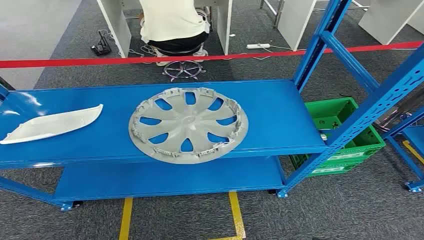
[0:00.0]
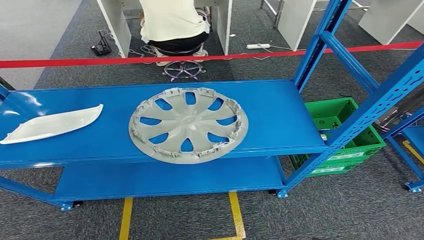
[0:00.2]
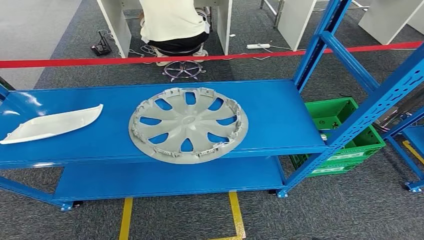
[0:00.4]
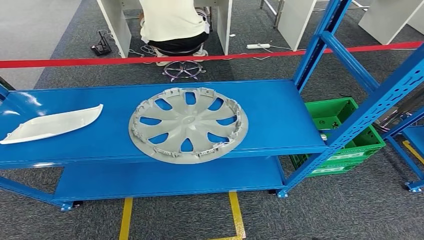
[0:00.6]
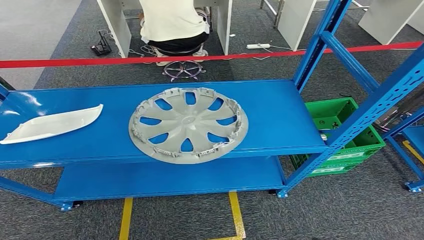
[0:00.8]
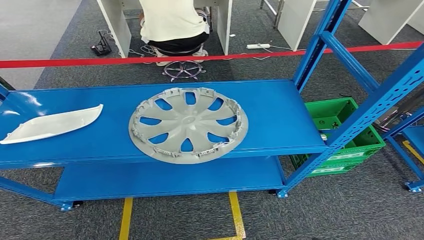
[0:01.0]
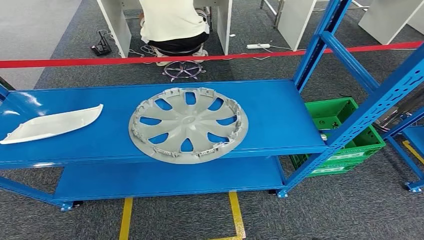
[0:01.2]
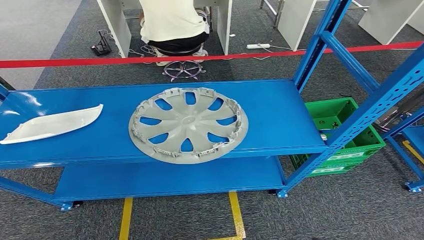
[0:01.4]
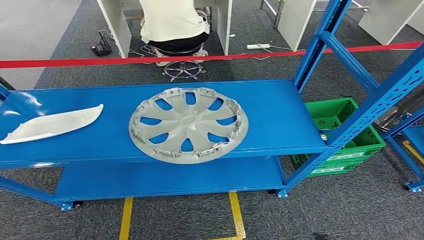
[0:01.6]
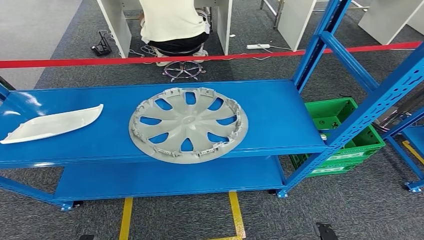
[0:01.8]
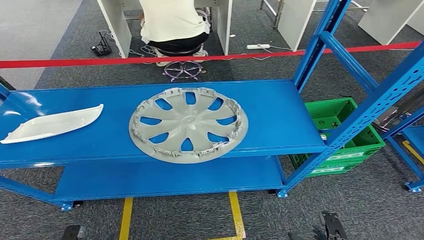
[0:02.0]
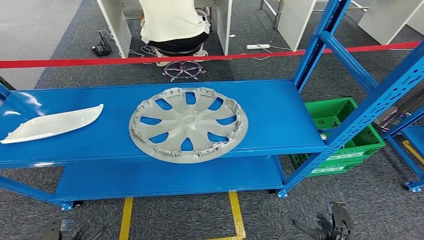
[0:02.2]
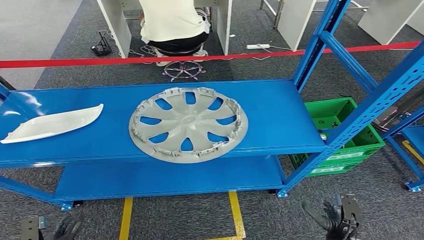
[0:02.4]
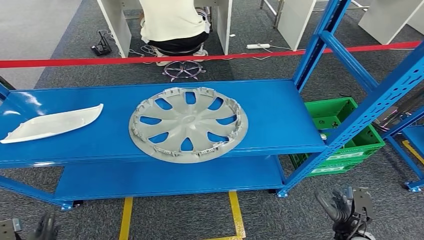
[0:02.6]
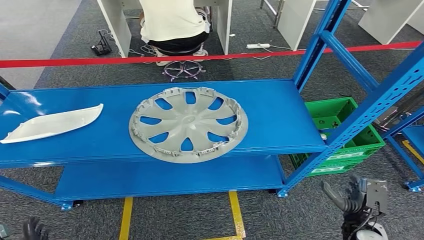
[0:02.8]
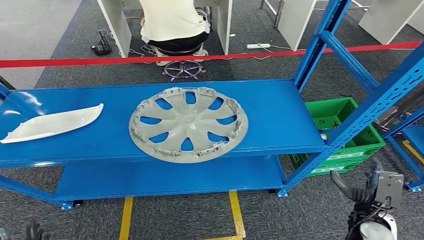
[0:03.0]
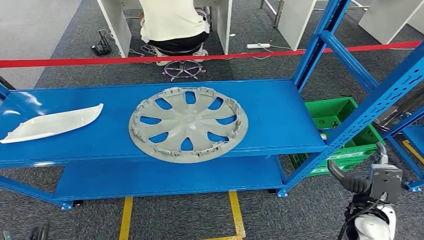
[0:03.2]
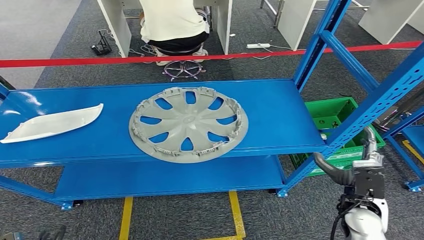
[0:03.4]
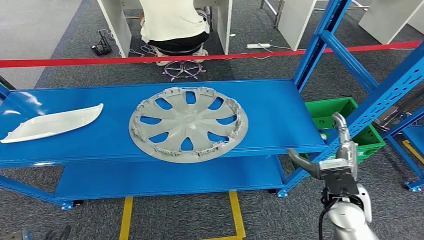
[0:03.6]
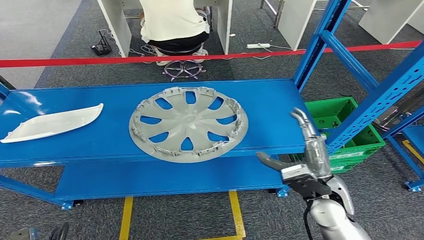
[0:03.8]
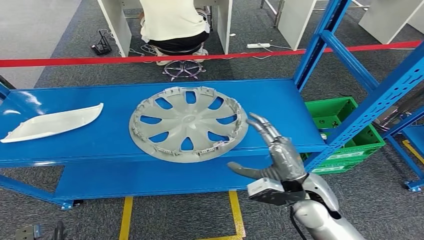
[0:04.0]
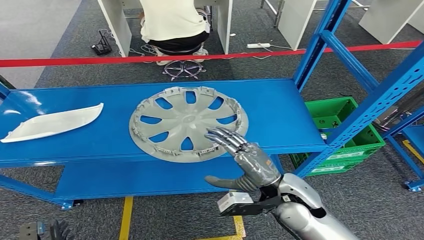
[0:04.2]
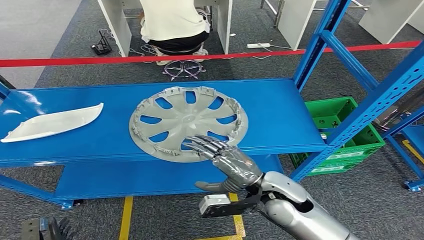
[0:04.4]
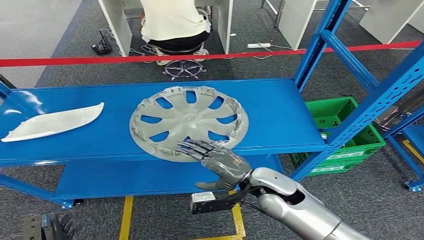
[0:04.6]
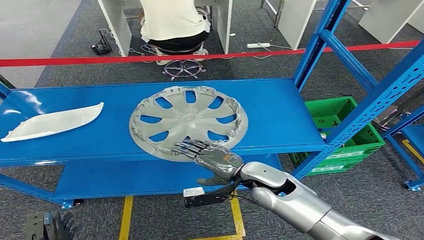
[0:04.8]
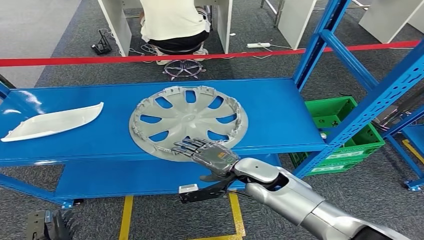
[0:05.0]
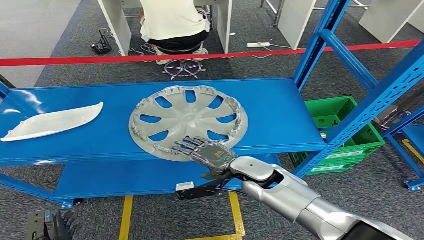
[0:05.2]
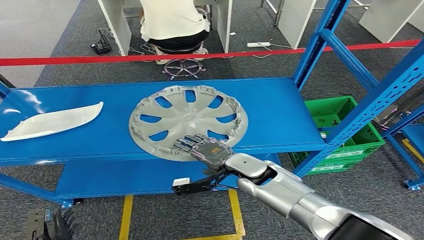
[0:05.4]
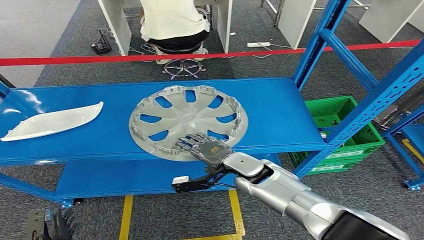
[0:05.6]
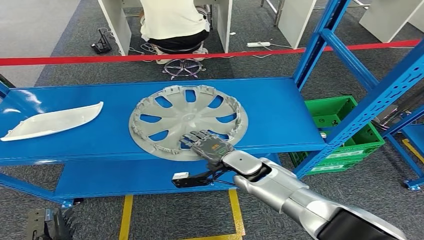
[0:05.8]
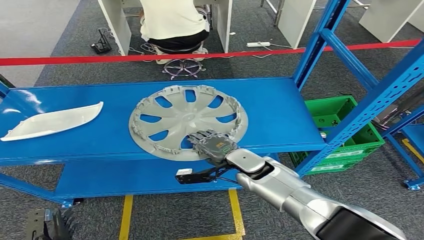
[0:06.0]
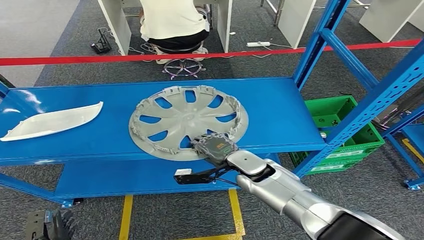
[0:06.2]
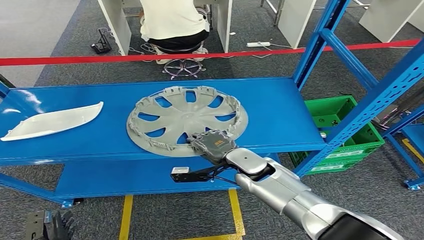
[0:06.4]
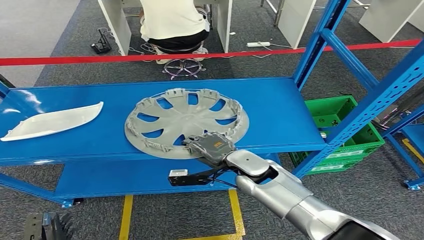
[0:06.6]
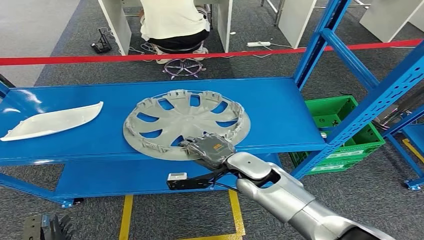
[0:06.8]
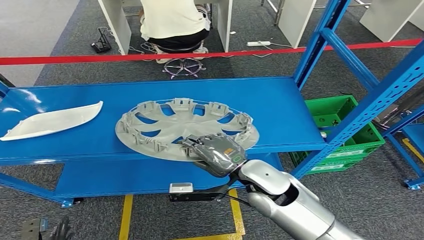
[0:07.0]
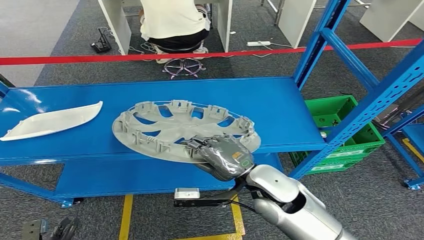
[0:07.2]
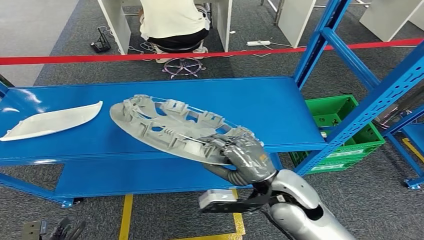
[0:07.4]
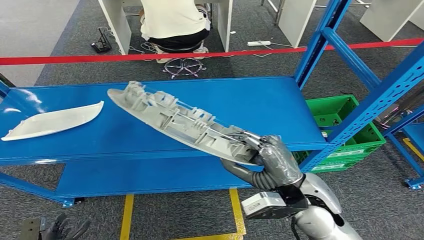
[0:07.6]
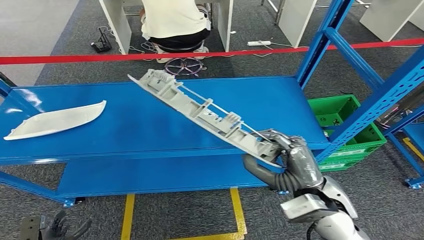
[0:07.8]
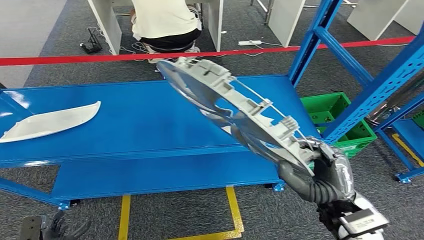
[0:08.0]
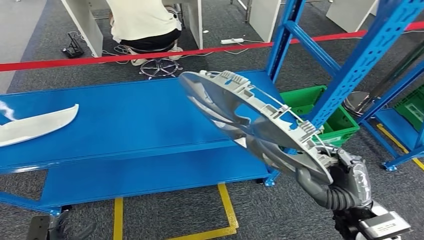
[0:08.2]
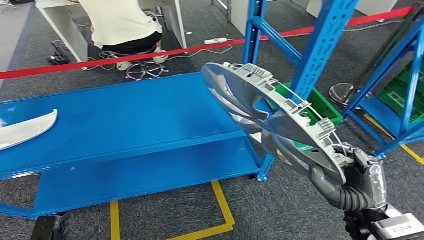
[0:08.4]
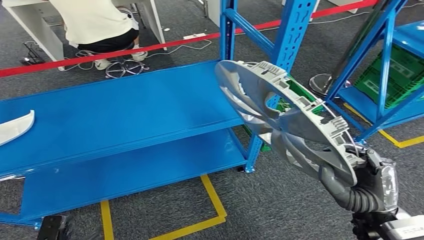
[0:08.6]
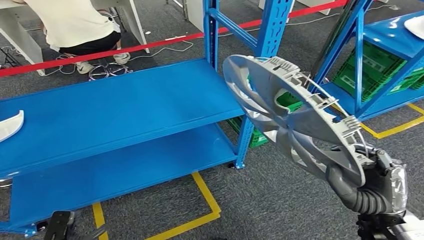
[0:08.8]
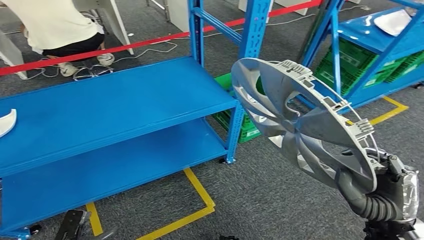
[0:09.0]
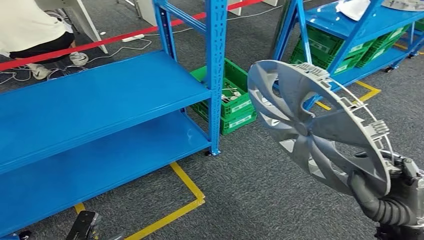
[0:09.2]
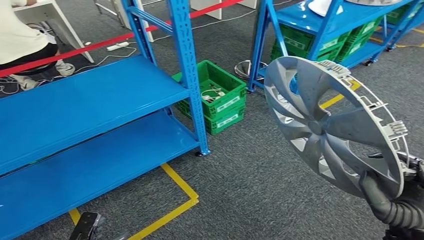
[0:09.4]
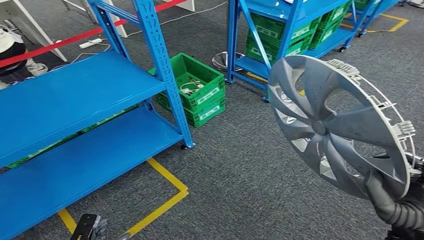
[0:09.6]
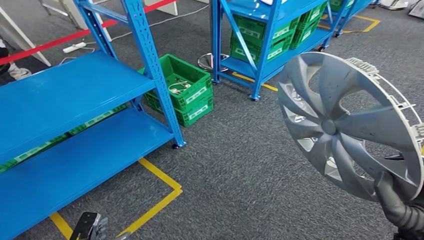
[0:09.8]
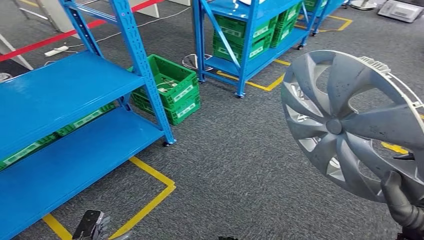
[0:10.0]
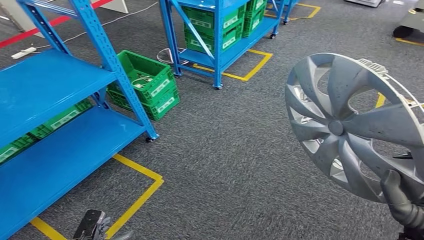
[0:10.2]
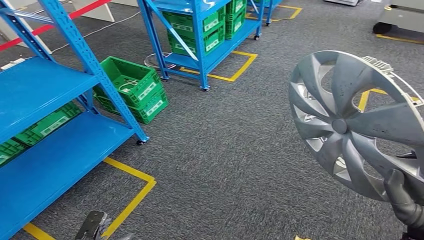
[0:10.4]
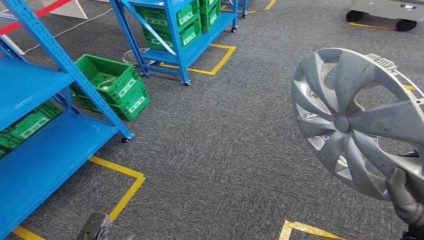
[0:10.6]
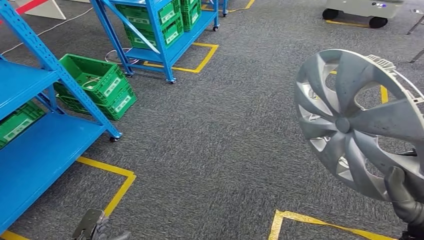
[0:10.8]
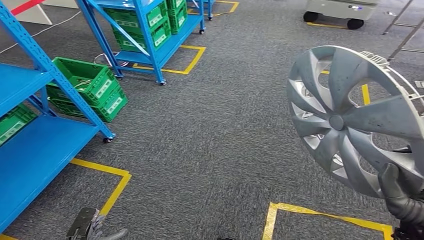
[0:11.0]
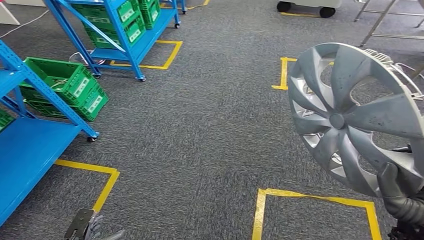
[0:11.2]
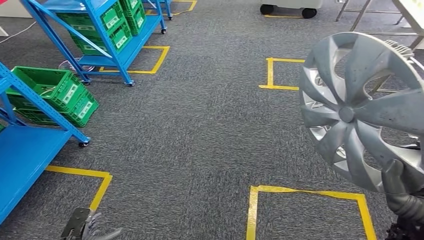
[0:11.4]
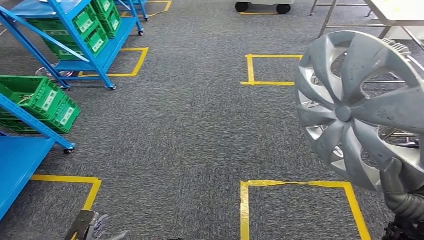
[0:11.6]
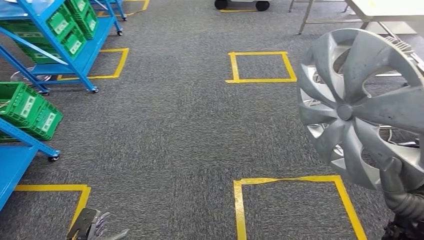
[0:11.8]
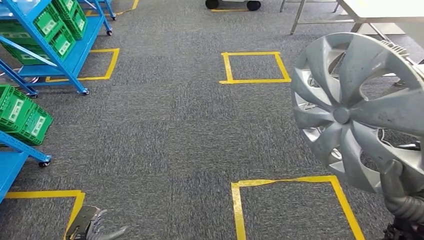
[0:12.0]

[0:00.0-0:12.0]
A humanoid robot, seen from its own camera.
Step, 0:00.0 to 0:07.8: Take small components from the rack.
0:01.6 to 0:03.0: The right hand travels forward and upward by roughly 25 cm, while the left hand travels forward, to the left and upward by approximately 10 cm.
0:03.0 to 0:04.4: The right hand goes about 20 cm to the left and upward.
0:04.4 to 0:06.0: The right hand moves forward, about 10 cm.
0:06.0 to 0:07.6: The right hand is displaced backward, upward and to the right by roughly 15 cm.

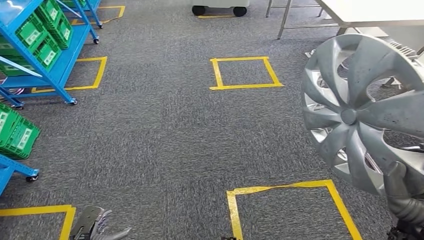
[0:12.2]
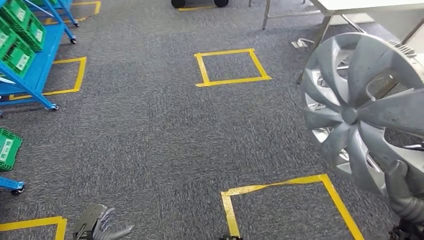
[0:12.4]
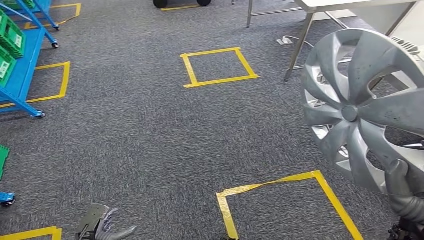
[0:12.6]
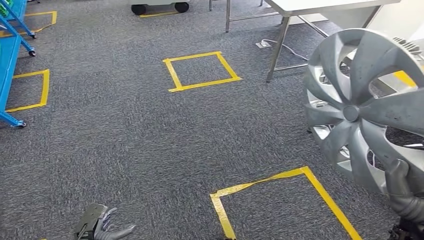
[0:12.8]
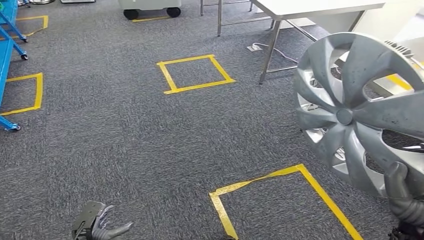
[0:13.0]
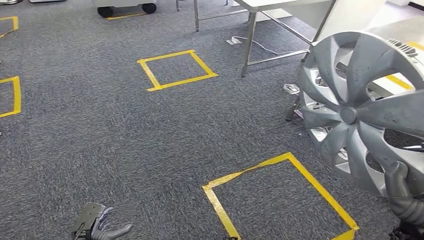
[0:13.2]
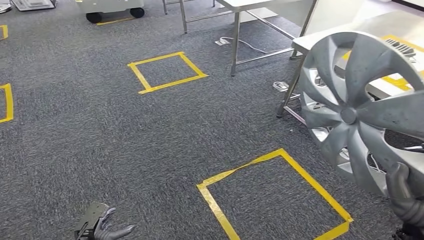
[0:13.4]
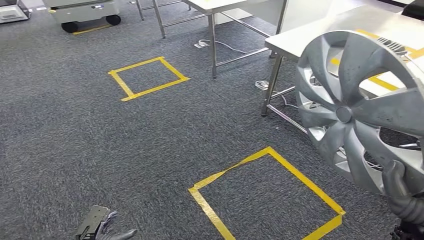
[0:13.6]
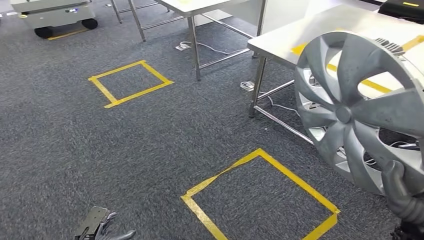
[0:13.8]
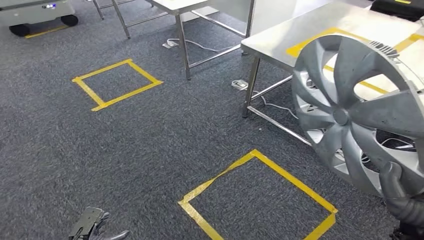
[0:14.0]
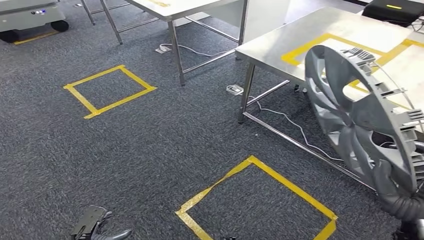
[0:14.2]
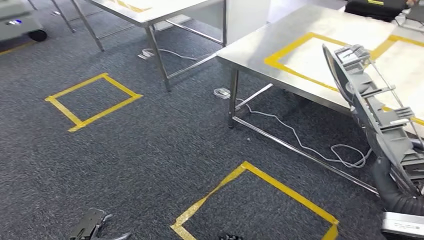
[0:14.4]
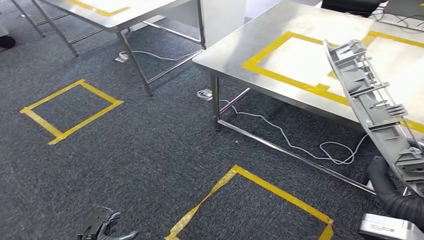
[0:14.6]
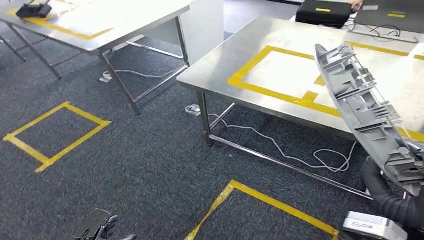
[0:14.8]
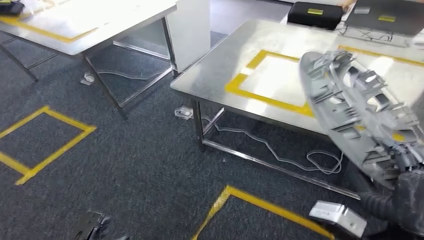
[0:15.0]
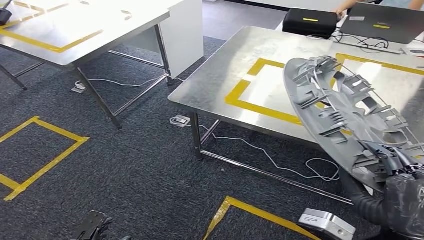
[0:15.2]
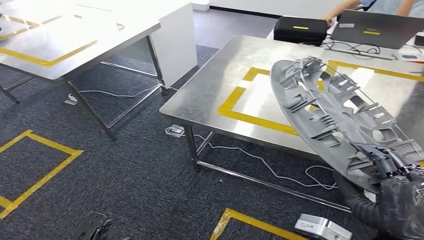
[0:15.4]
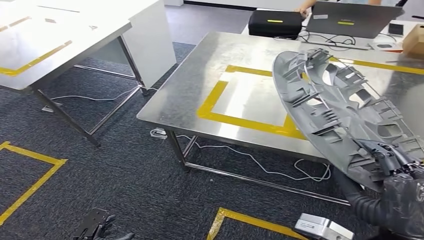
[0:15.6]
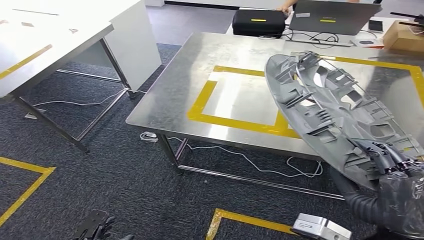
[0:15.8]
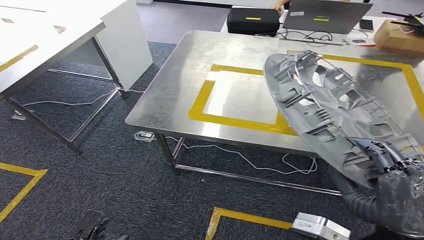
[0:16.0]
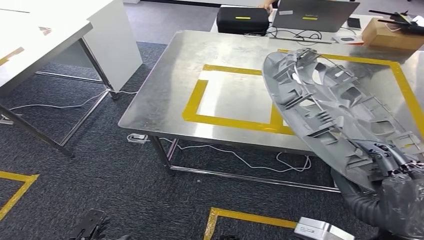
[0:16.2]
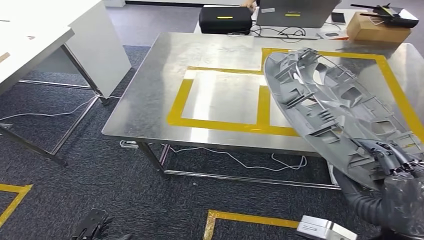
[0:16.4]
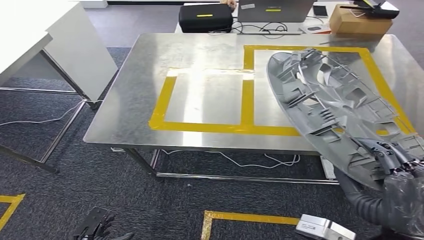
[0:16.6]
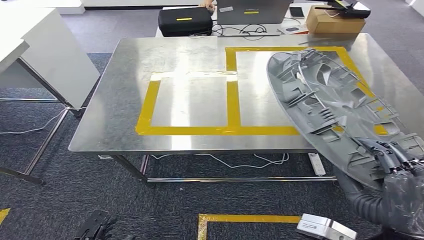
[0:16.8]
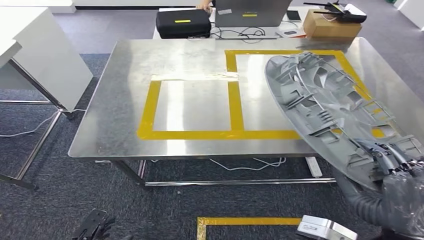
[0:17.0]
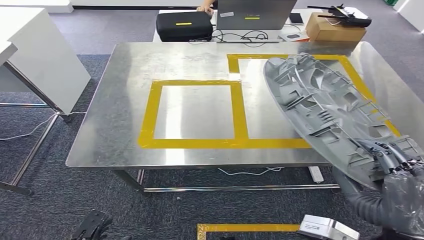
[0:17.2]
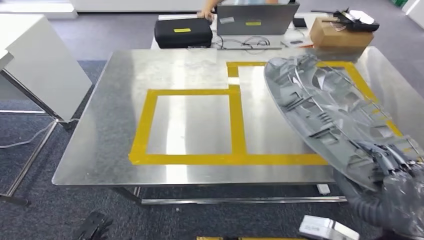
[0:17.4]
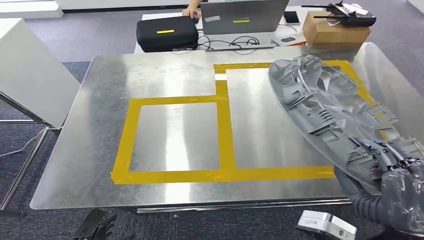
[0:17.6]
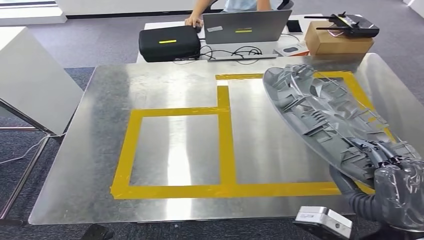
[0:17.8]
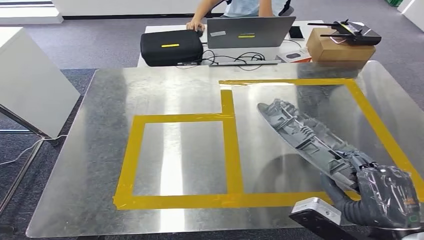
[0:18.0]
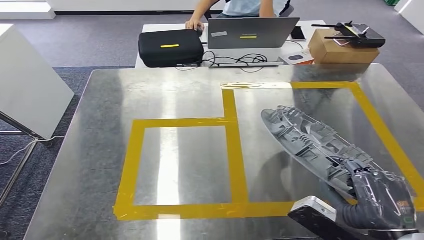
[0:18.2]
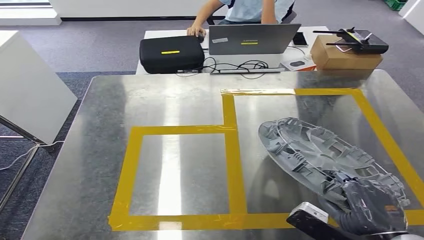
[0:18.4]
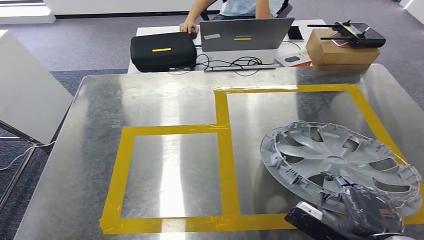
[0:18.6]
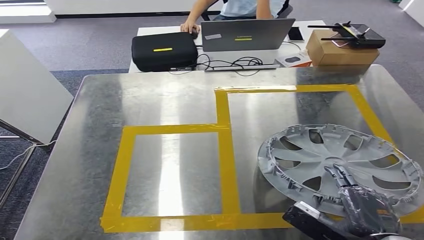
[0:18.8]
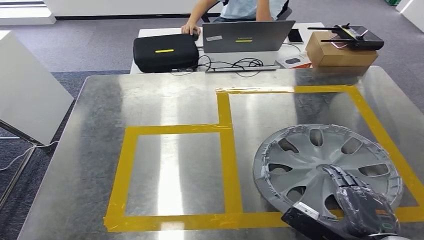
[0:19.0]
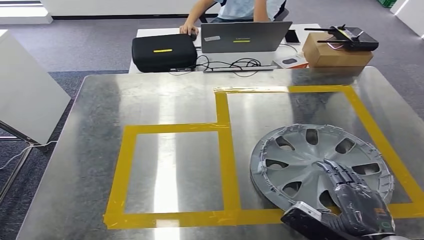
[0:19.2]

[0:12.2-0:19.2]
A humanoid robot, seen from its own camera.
Step, 0:12.2 to 0:17.6: Move the small parts to the workbench.
